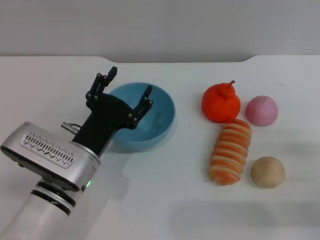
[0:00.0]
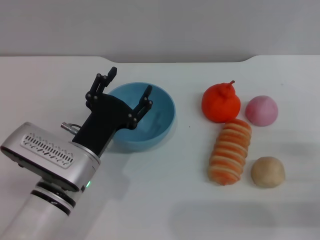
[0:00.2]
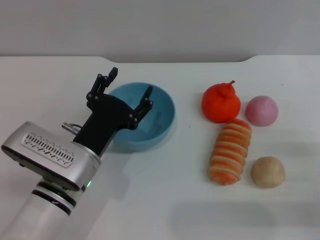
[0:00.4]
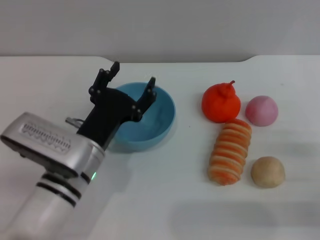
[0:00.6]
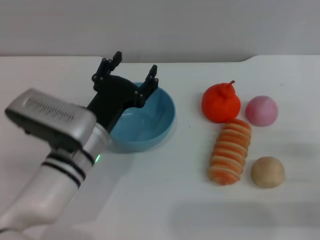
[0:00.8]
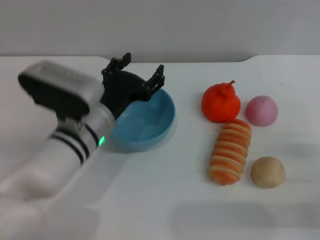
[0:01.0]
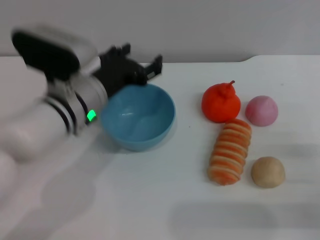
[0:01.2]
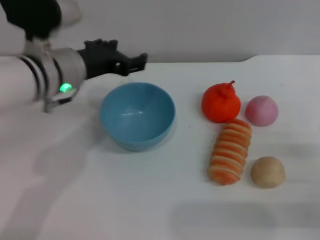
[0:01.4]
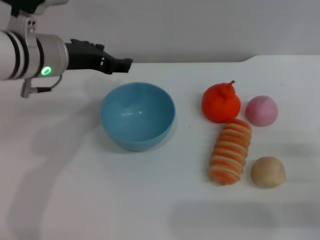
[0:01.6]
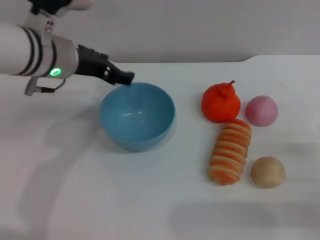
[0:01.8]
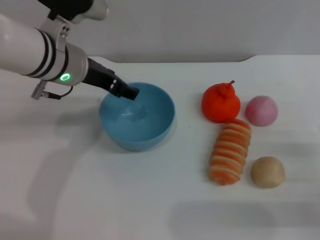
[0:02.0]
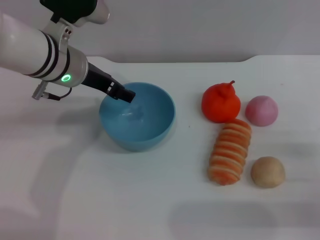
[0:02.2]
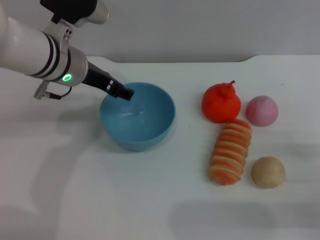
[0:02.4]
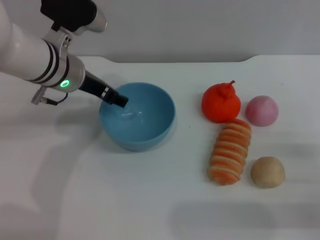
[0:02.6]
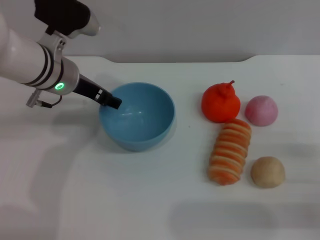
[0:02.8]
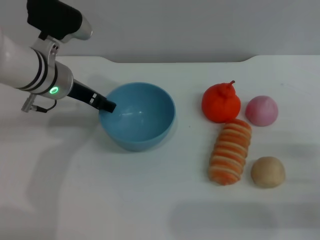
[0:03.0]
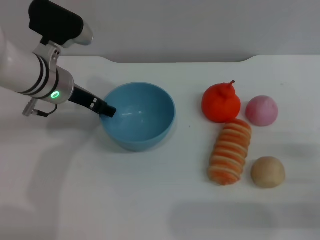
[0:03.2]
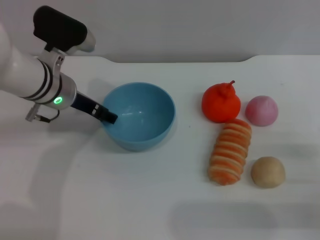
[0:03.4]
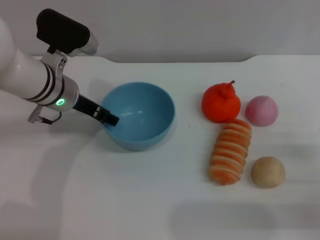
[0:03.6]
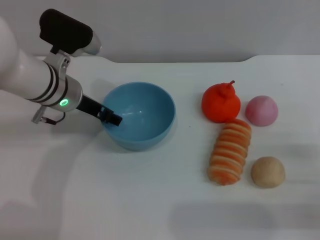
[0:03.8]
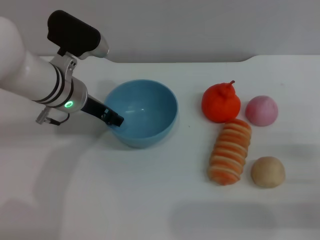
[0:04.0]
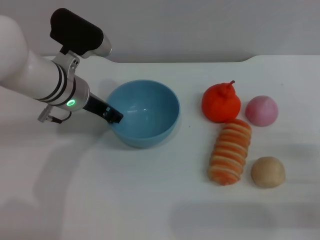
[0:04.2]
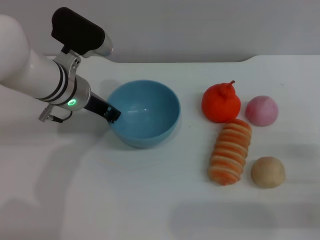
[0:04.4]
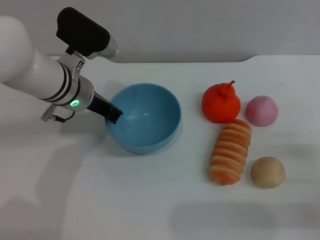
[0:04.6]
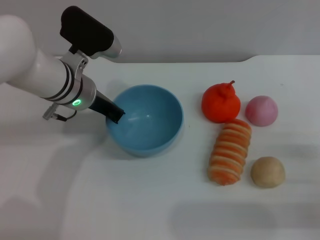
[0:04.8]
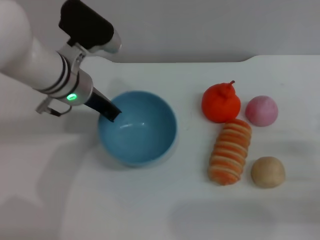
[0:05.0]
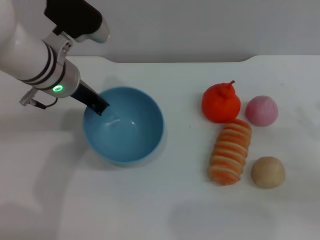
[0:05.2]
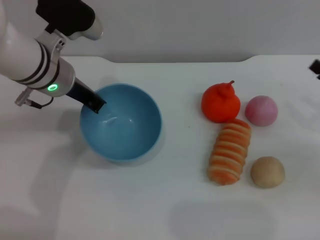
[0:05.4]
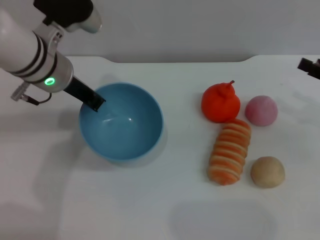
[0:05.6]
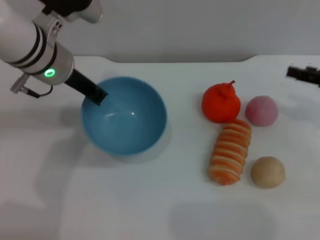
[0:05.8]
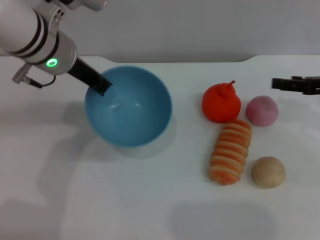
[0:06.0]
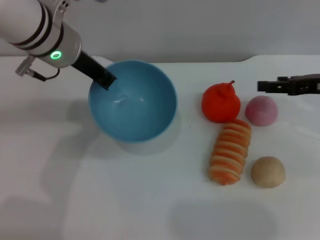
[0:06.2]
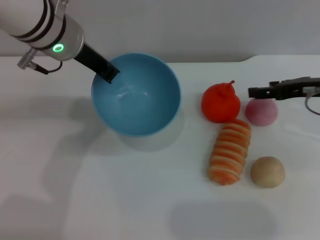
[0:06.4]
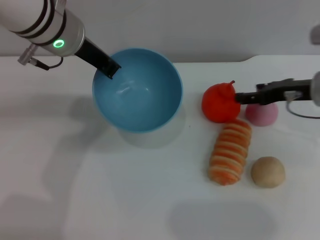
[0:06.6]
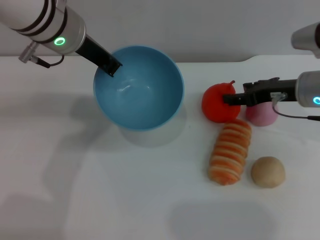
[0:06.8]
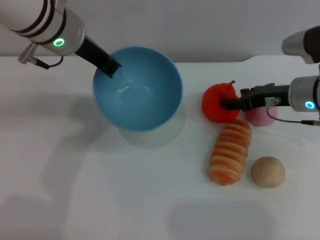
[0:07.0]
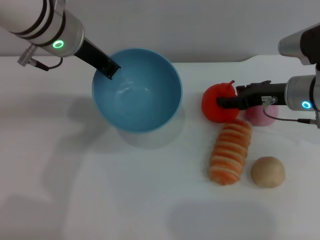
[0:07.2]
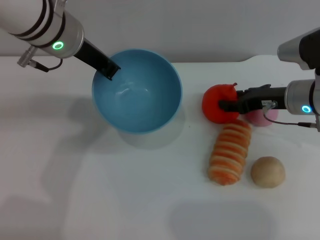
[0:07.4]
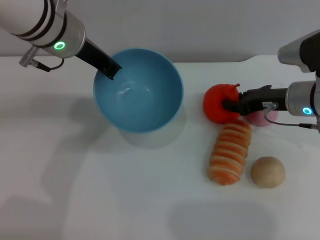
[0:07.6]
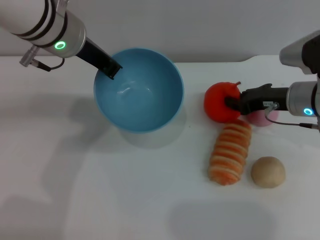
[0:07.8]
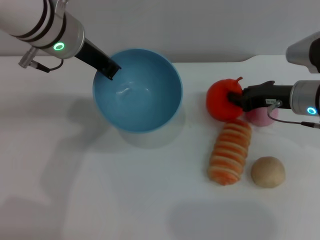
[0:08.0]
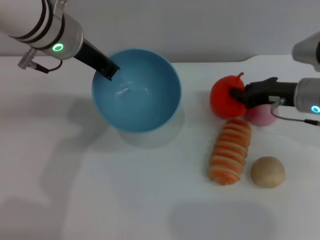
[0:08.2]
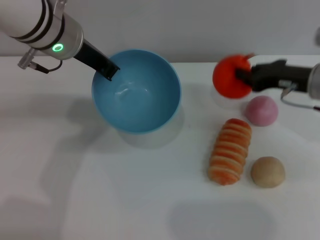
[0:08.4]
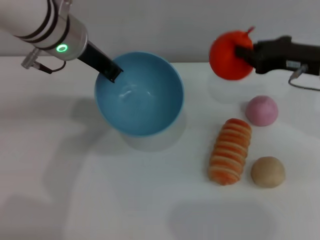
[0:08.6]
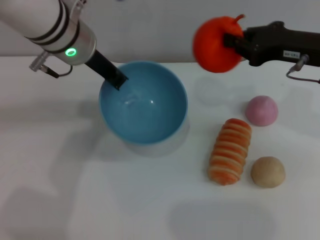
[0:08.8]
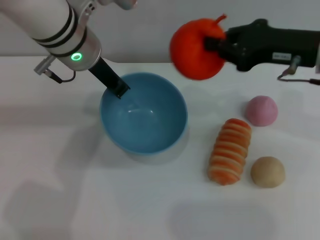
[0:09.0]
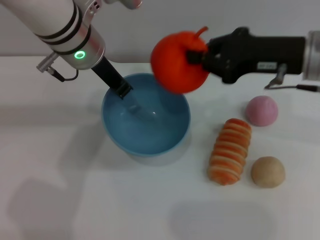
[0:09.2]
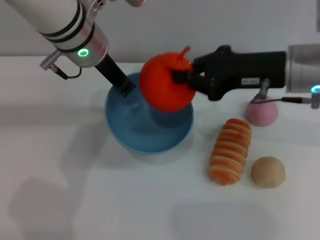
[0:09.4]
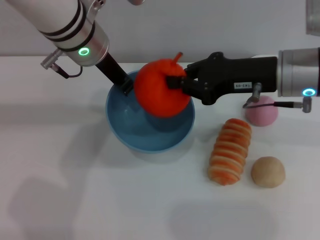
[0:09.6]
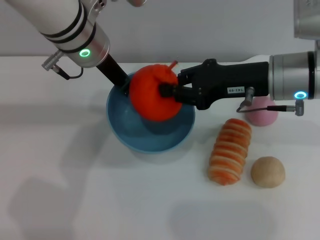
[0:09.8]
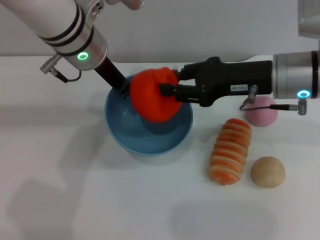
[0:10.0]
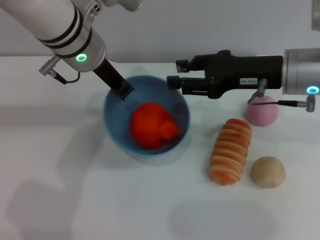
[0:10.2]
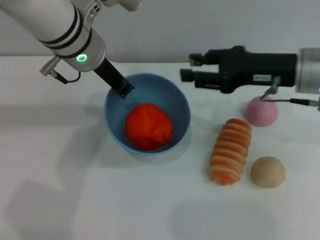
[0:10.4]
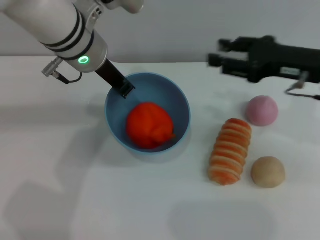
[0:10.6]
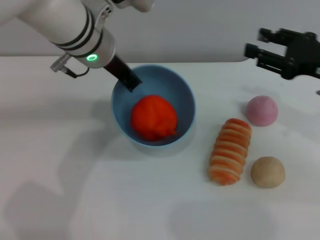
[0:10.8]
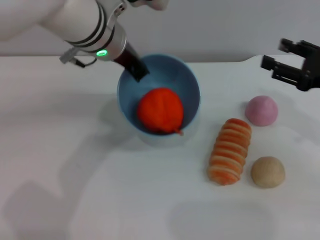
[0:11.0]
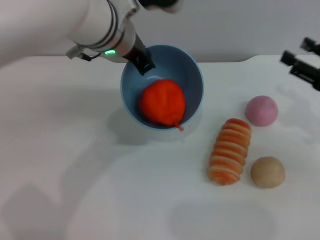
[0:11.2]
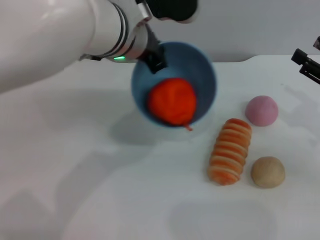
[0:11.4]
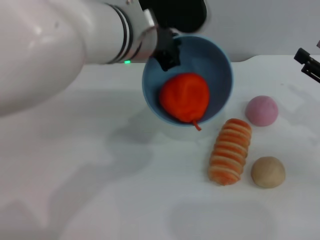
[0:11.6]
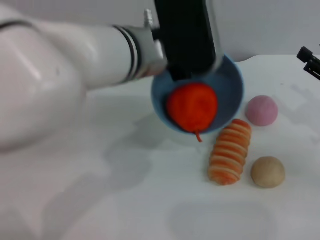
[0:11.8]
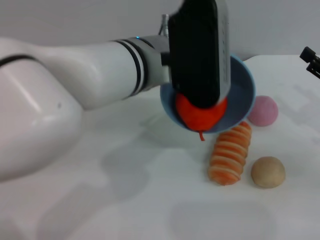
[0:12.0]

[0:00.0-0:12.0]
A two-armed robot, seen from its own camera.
Task of the whole recording: put the orange into the blue bowl and pour it out repeatedly.
Step, 0.0 to 4.8 s: Pick up the bowl with the left gripper.
Step, 5.0 to 8.2 s: Pick up the orange with the right gripper.
Step, 8.4 to 10.2 s: Place the orange into the bowl.
0.0 to 1.6 s: The left gripper heads upward and forward, covering approximately 20 cm.
1.6 to 3.0 s: The left gripper shifts by approximately 5 cm.
3.0 to 4.4 s: The left gripper closes its fingers.
4.4 to 6.0 s: The right gripper is displaced forward and upward by approximately 20 cm; the left gripper shifts approximately 10 cm upward, and closes.
6.0 to 7.6 s: The right gripper is displaced to the left by about 10 cm, and closes.
7.6 to 9.0 s: The right gripper heads upward, covering roughly 10 cm, and closes up.
9.0 to 10.4 s: The right gripper opens up.
10.4 to 12.0 s: The left gripper goes approximately 10 cm backward and to the right; the right gripper moves to the right, downward and backward, approximately 15 cm.

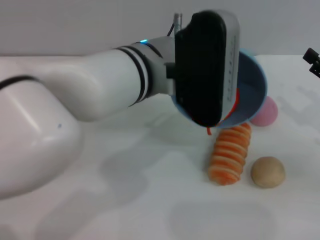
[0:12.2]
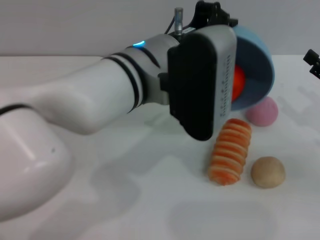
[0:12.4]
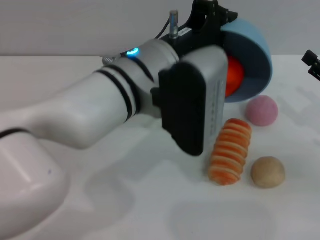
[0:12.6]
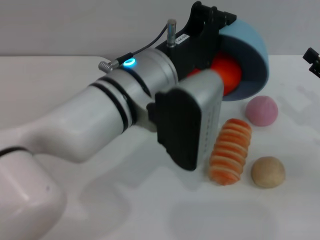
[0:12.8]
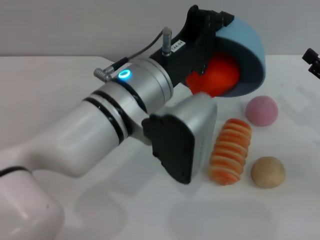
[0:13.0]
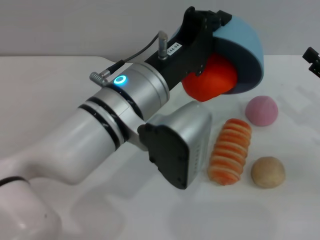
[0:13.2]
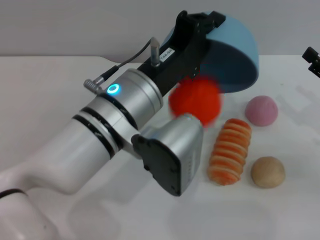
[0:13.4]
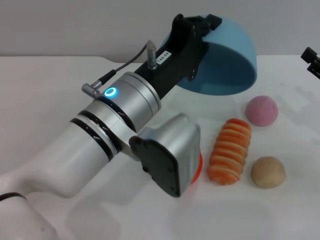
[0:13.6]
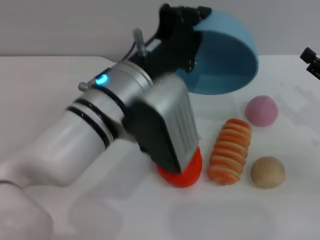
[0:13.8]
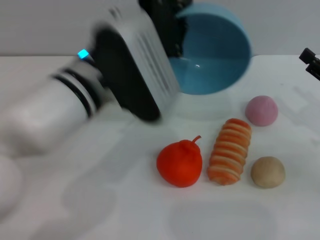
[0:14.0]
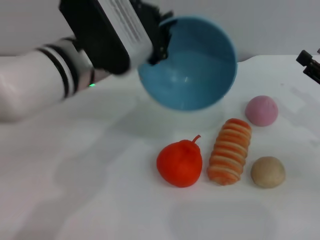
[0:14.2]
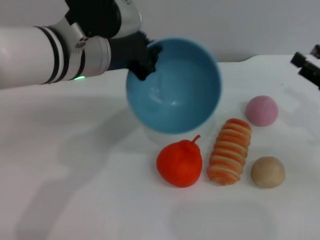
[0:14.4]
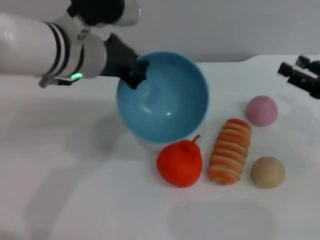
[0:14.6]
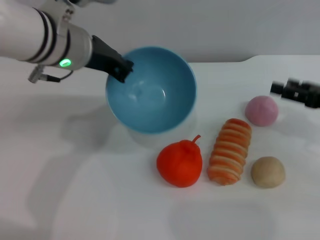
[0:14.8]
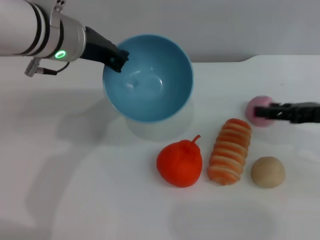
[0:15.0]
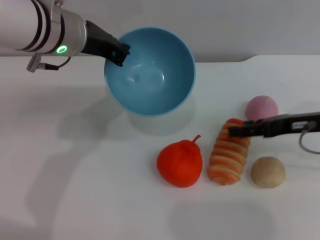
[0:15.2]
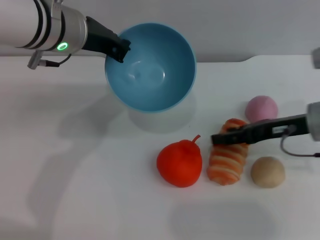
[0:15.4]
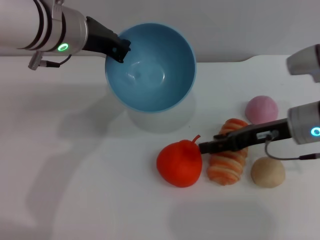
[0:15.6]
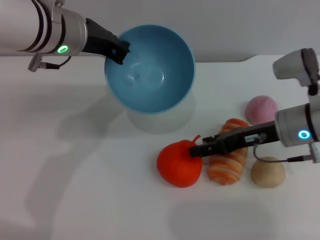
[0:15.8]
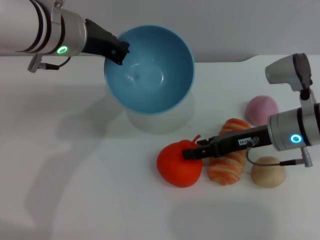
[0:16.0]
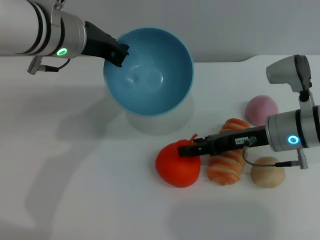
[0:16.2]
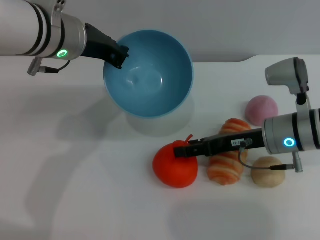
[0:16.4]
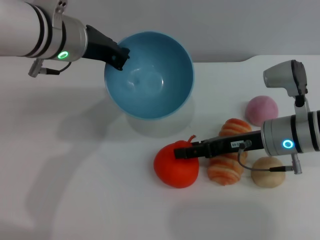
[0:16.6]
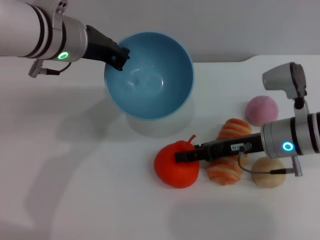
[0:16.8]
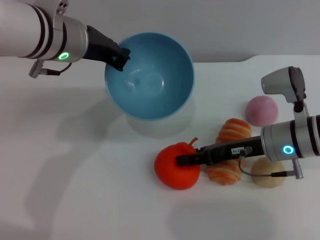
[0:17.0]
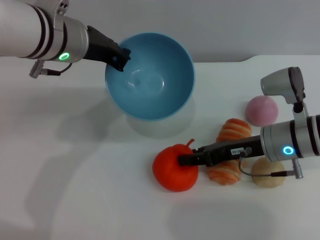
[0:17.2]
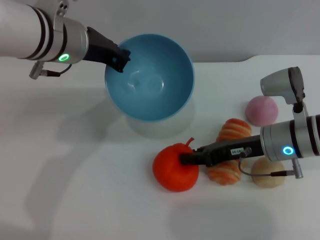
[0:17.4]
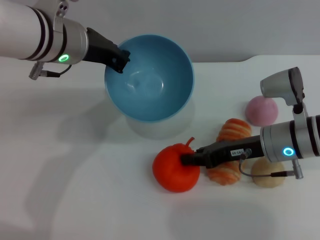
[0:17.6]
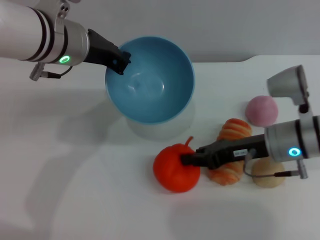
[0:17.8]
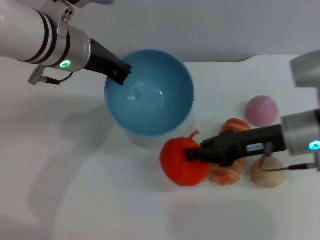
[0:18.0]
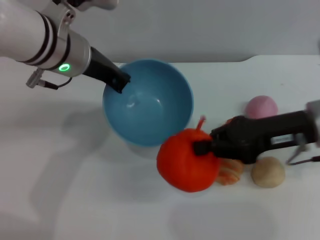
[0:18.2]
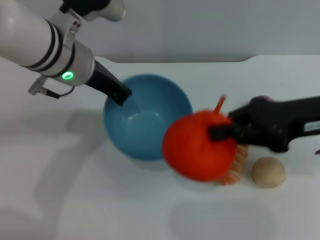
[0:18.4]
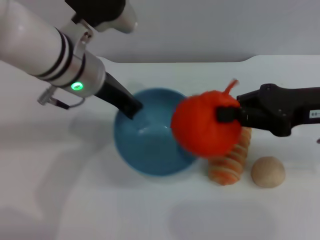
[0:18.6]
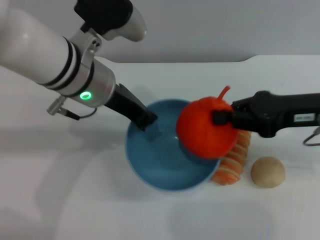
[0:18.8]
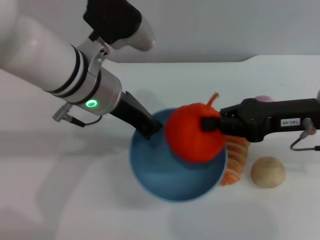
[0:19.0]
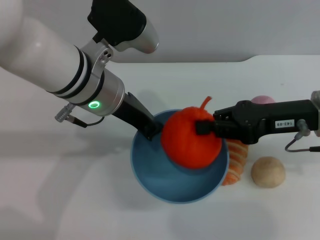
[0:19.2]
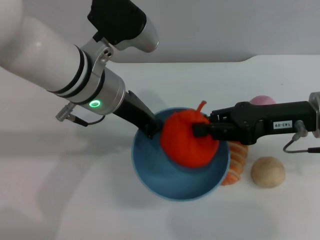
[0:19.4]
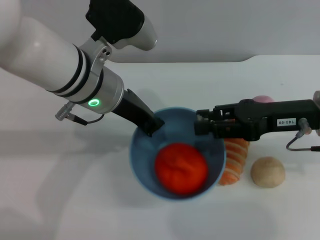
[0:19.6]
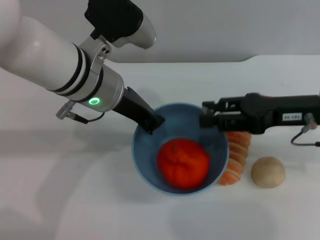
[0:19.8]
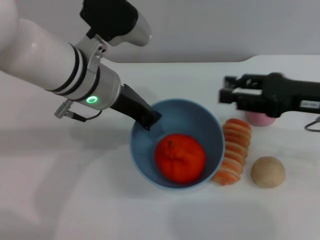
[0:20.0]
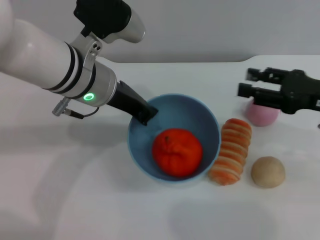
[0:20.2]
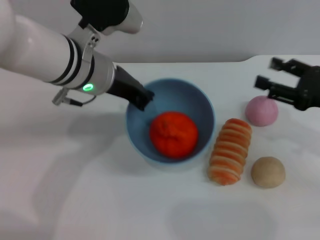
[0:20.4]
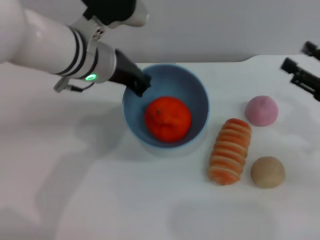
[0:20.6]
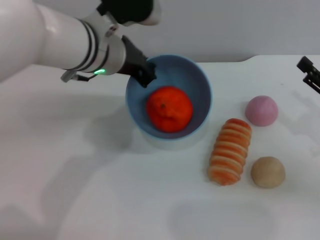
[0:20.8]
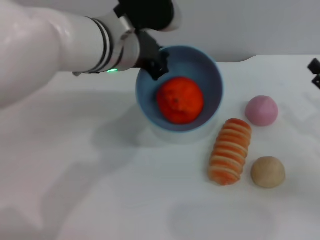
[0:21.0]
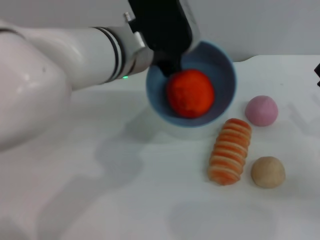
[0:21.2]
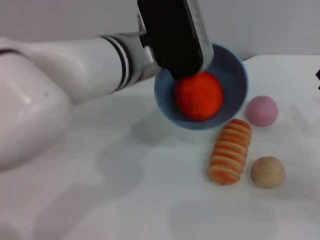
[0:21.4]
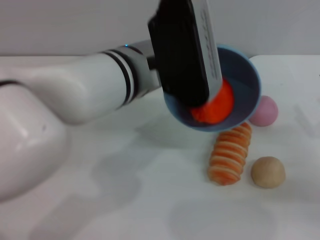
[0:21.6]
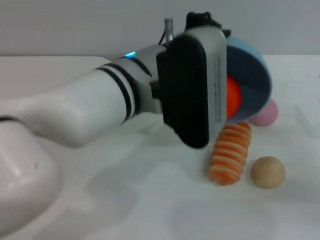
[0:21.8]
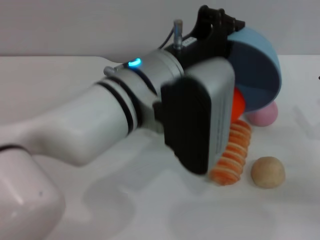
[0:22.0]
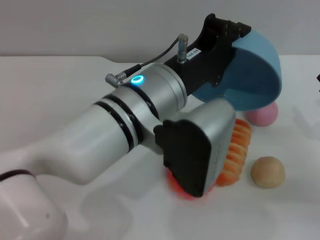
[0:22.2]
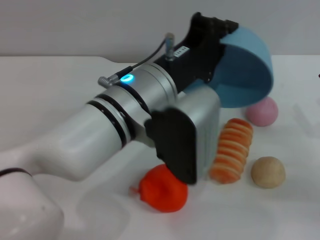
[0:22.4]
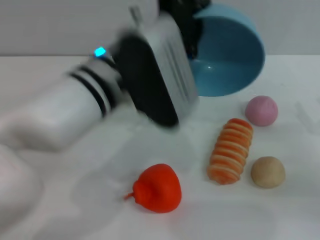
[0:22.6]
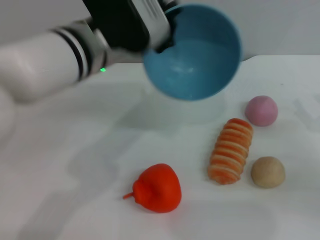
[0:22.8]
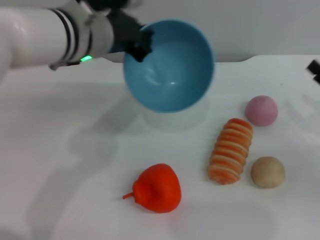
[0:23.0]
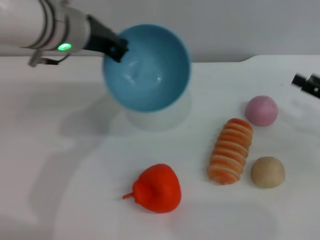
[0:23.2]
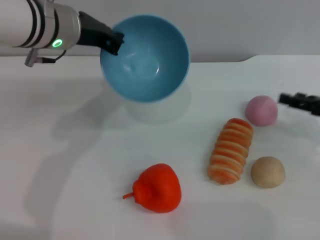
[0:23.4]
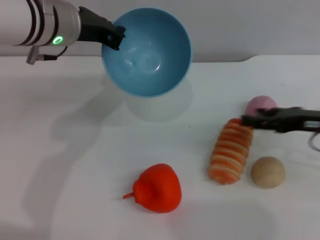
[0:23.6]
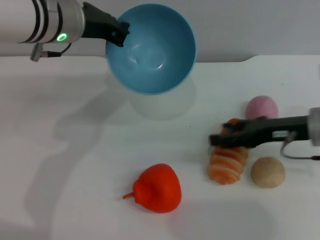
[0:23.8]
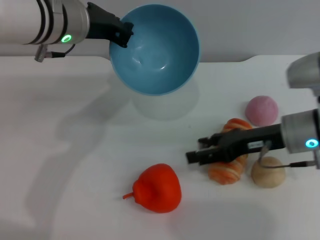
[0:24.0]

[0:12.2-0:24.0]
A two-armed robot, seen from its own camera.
Task of the whole recording: put the orange into the blue bowl and pour it out repeatedly.
Step, 12.2 to 14.0 s: Pour the orange out of the bowl.
Step, 14.2 to 18.2 s: Pick up the orange with the right gripper.
Step, 18.4 to 19.8 s: Place the orange into the bowl.
Step, 20.0 to 22.6 s: Pour the orange out of the bowl.
12.2 to 13.6 s: The left gripper ends up some 5 cm from where it was.
13.6 to 15.2 s: The left gripper travels forward, to the left and upward by roughly 15 cm. Meanwhile the right gripper shifts roughly 5 cm to the left.
15.2 to 16.6 s: The right gripper heads to the left, covering roughly 10 cm.
16.6 to 18.2 s: The right gripper moves upward, some 10 cm, and closes its fingers.
19.6 to 21.0 s: The right gripper moves to the right, downward and backward, about 15 cm, and opens.
21.0 to 22.6 s: The left gripper goes roughly 5 cm backward.
22.6 to 24.0 s: The left gripper moves forward and to the left, approximately 10 cm; the right gripper travels to the left and forward by about 15 cm.
